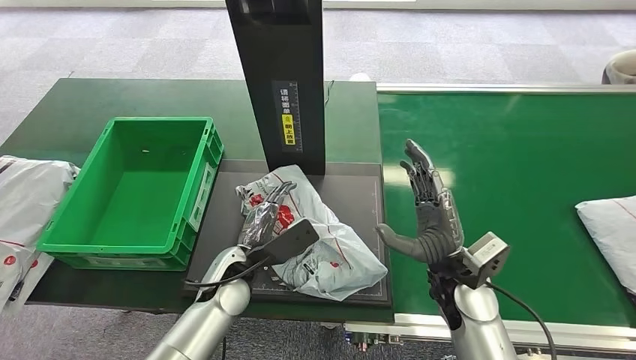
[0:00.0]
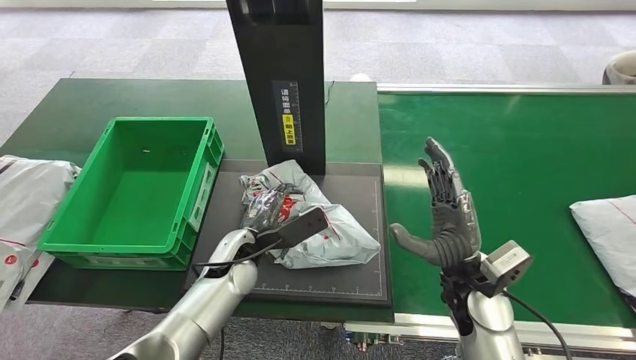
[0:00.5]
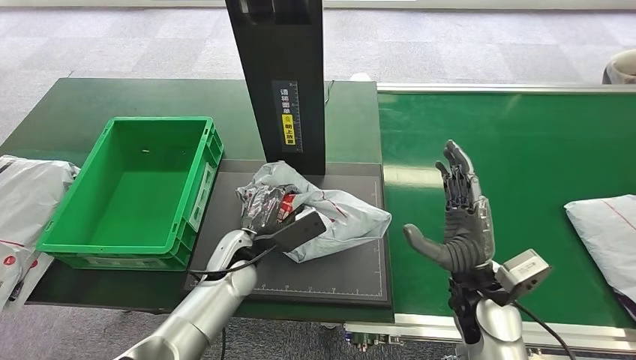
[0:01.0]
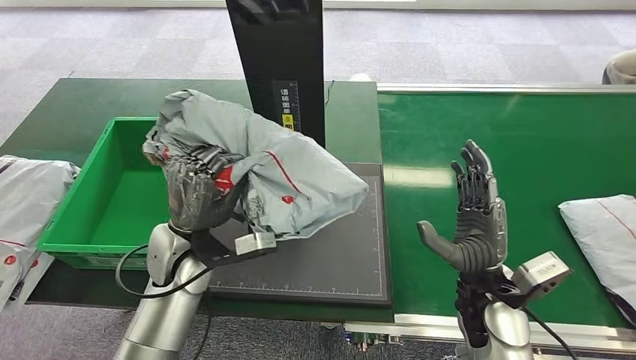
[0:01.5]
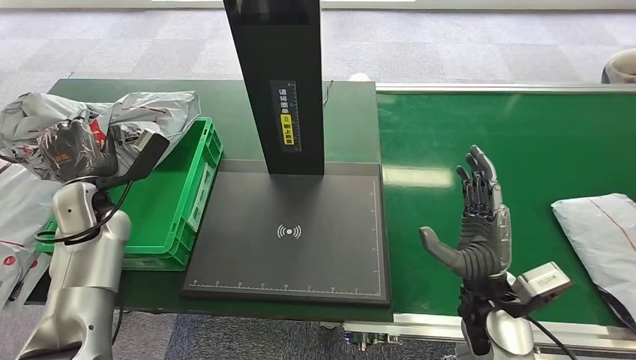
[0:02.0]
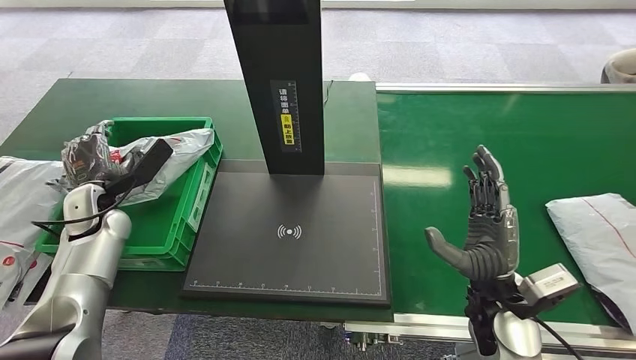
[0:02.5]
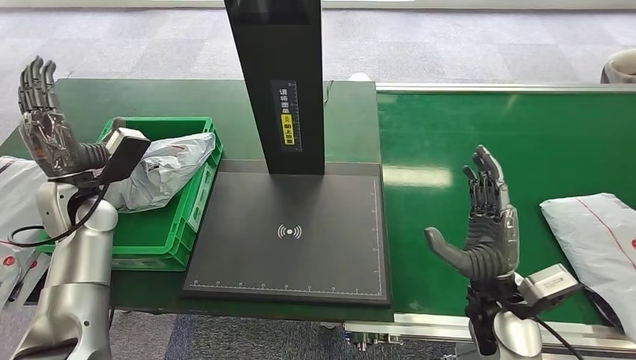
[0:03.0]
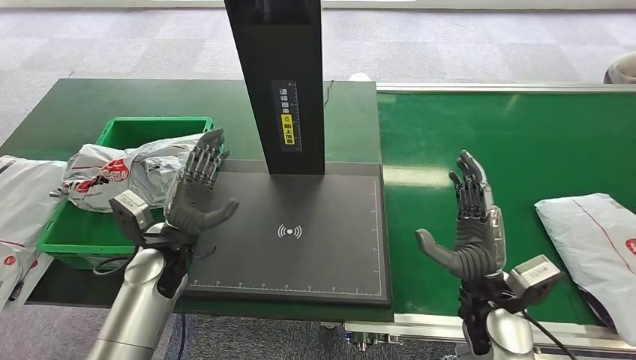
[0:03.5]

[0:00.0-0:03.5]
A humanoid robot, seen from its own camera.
Step, 0:00.0 to 0:01.0: Pick up the package from the inbound machine.
Step, 0:01.5 to 0:03.5: Place the package into the parcel locker.
